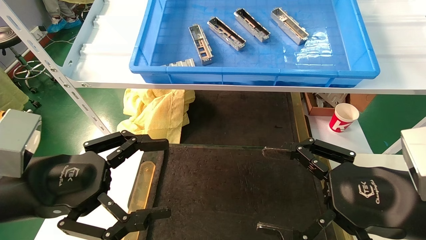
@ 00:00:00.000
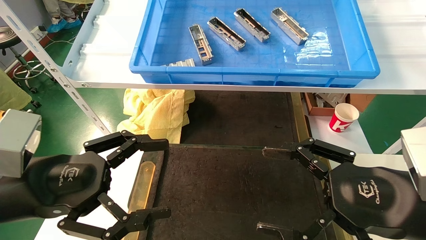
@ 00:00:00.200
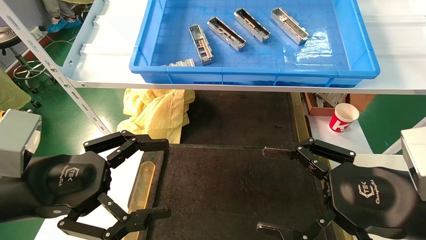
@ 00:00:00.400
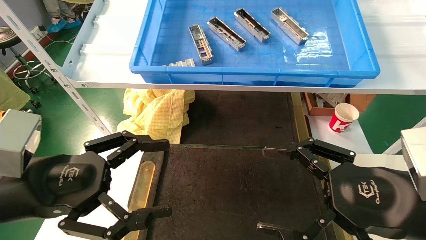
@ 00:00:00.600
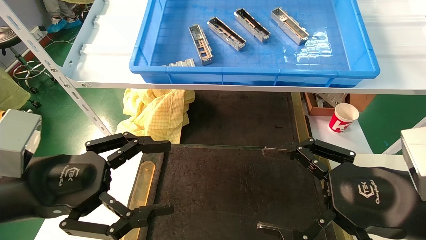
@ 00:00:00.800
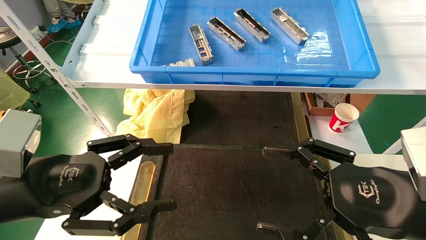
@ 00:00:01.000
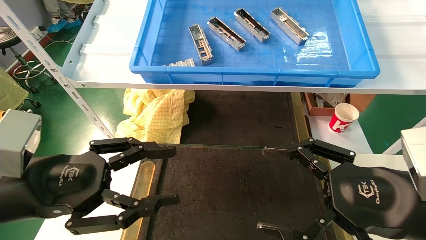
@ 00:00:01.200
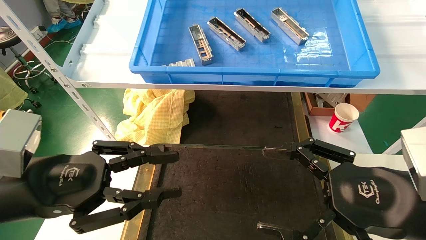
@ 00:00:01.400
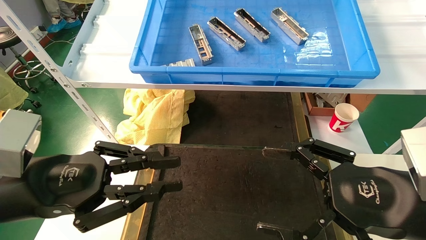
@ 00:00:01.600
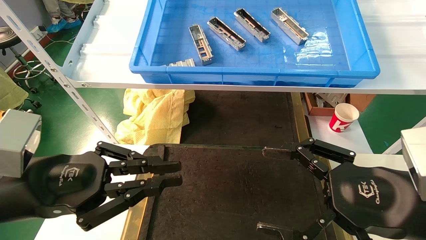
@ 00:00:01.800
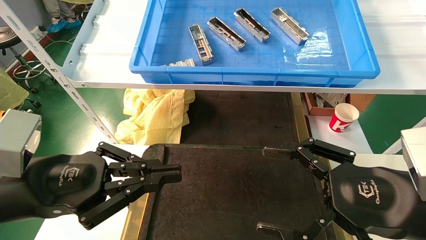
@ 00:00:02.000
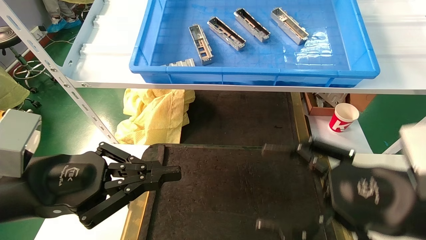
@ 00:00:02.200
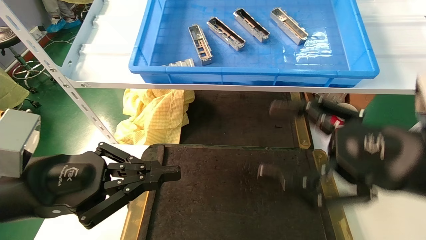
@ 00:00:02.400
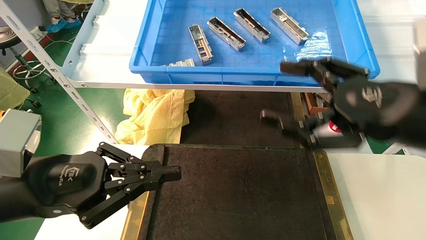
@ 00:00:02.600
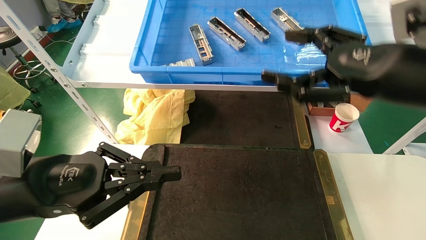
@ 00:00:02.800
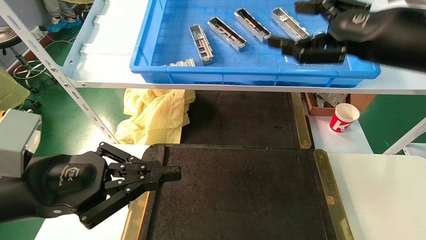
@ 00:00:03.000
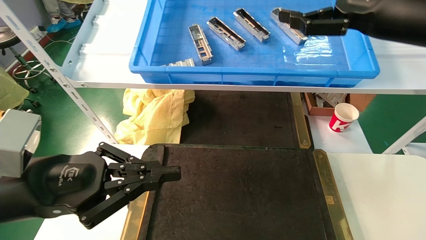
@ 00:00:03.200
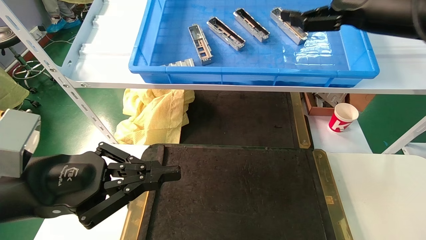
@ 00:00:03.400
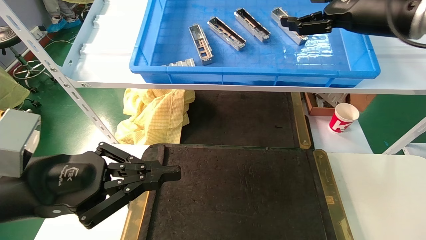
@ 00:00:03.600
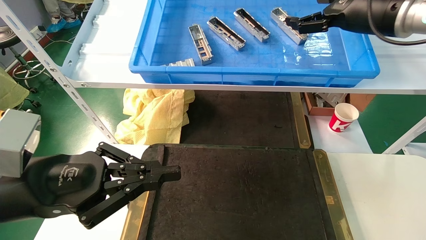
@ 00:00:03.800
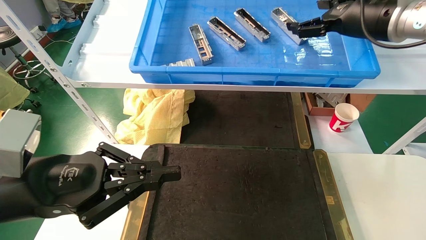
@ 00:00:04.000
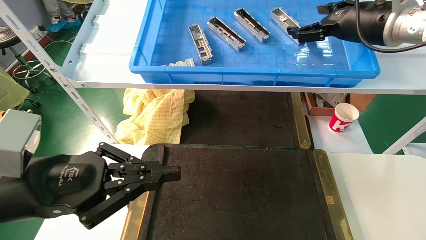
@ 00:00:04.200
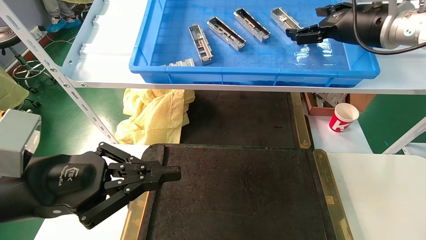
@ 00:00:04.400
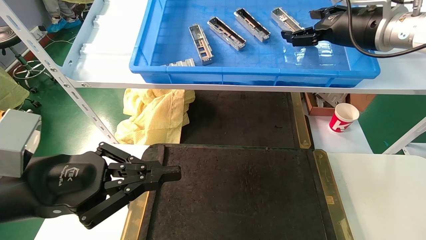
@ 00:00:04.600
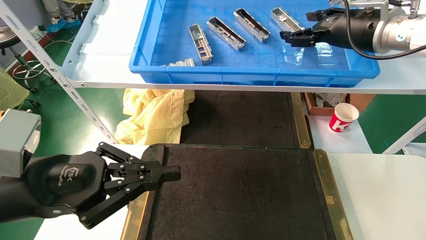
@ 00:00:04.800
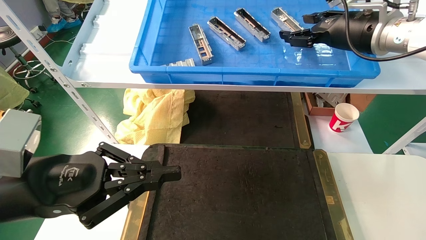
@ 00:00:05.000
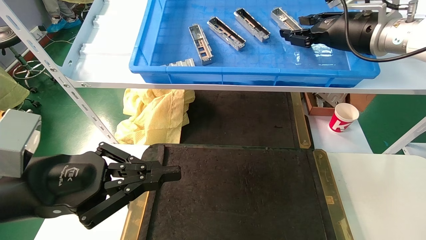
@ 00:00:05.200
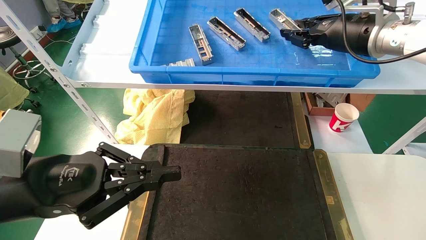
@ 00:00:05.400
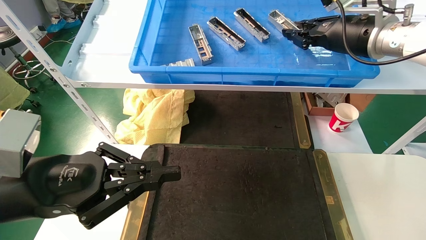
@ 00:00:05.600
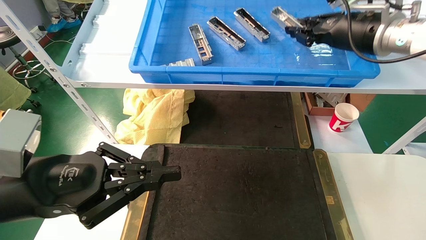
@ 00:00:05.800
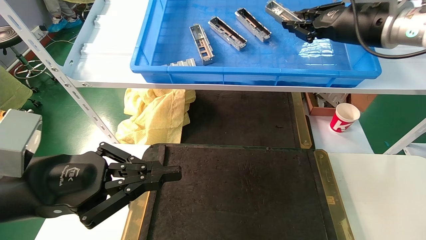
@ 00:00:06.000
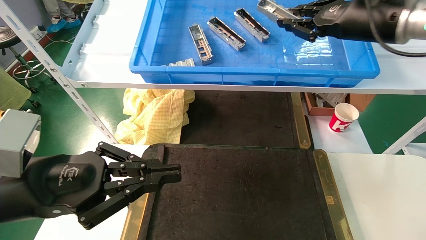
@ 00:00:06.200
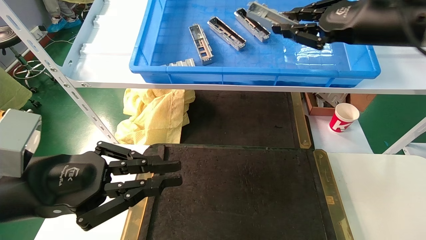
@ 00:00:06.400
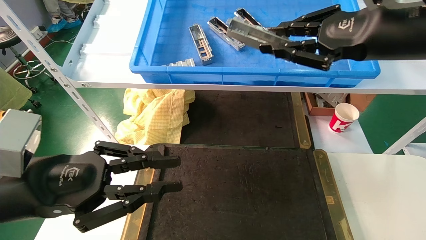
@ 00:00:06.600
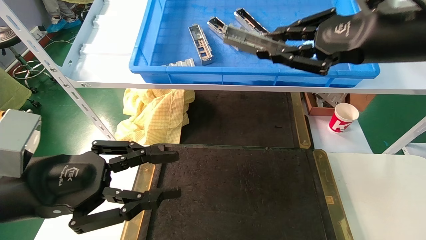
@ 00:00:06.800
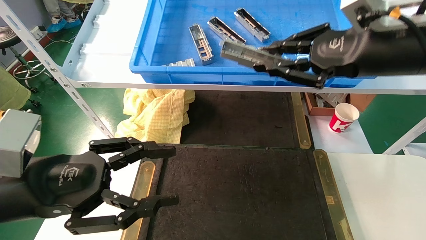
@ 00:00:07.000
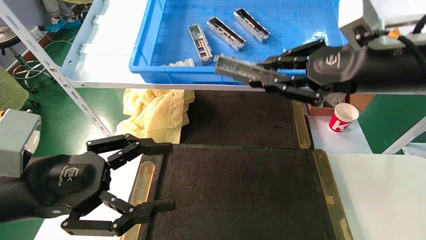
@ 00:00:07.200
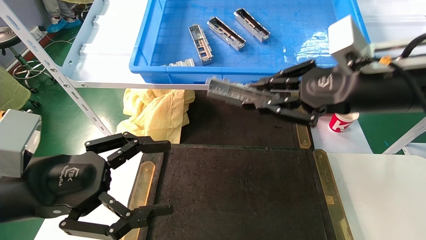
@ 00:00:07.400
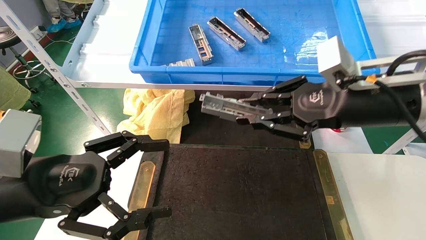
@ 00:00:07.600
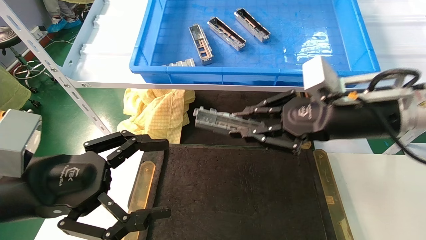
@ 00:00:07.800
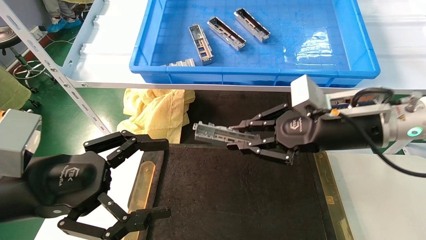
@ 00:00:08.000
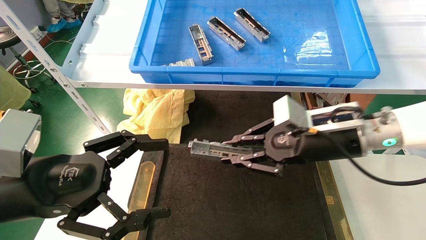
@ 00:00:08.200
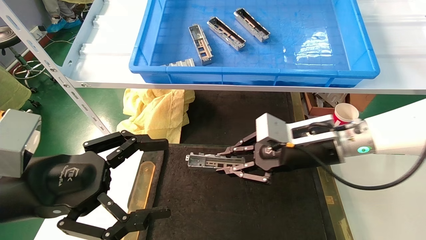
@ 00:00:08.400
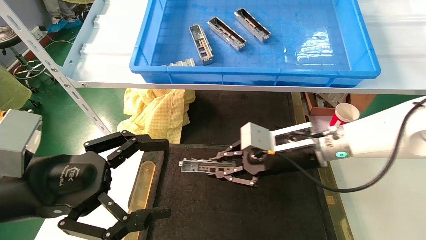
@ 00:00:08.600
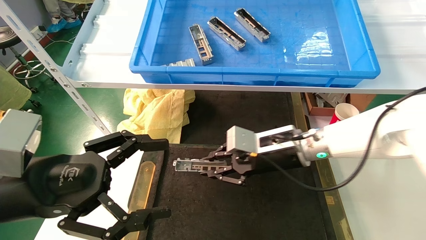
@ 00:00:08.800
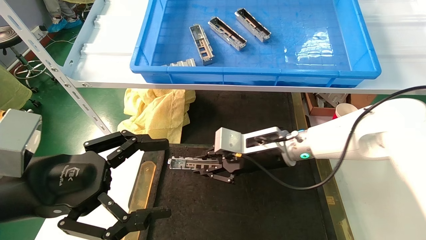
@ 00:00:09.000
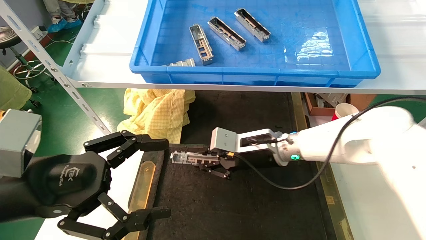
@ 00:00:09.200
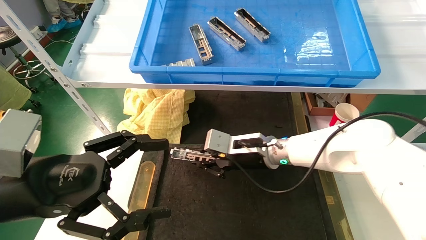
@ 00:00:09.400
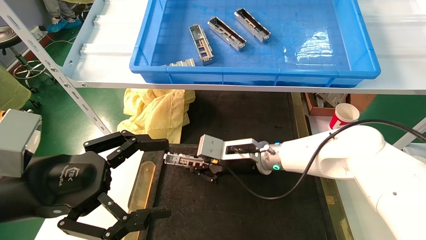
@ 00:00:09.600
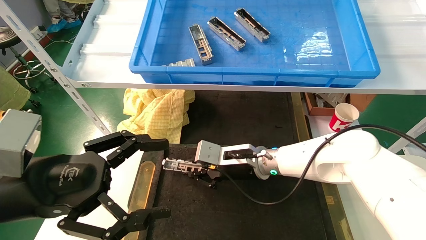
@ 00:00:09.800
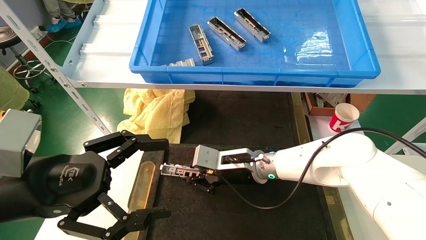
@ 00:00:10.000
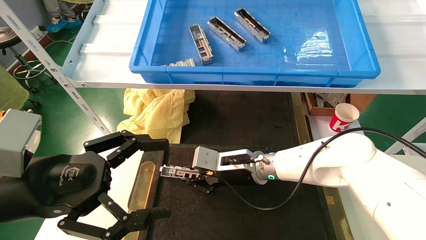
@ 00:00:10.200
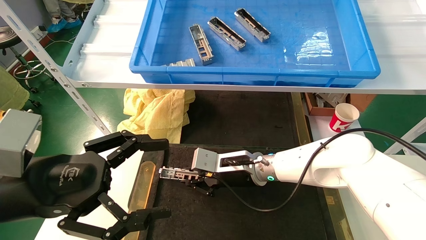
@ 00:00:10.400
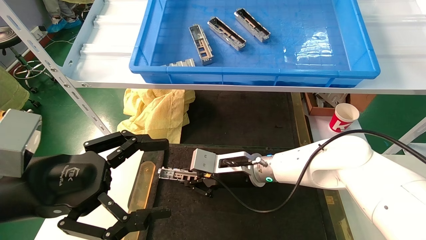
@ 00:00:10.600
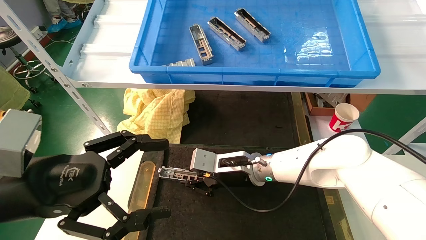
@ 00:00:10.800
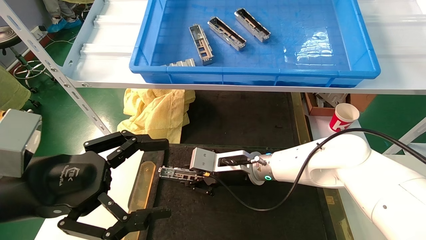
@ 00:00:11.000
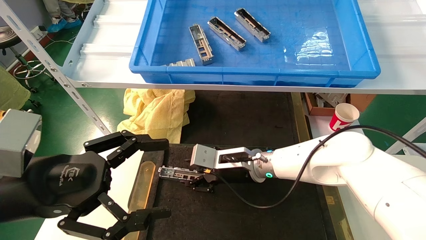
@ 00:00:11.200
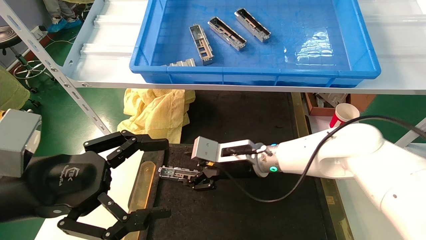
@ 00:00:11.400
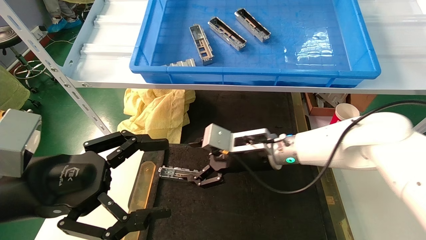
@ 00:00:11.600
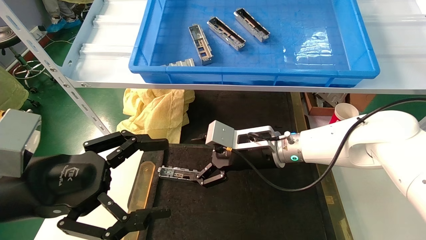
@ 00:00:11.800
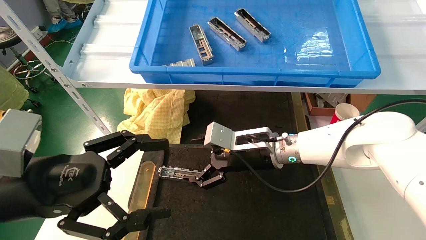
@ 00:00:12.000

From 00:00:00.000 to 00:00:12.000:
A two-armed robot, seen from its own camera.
Task of the whole recording: grasp the part and place them on the black container.
Step, from 00:00:01.400 to 00:00:06.600: Pick up and lift the front USB bracket from the feeding area.
Step, from 00:00:06.800 to 00:00:11.400: Place the front USB bracket into the box.
From 00:00:00.000 to 00:00:01.600: The left gripper closes.
From 00:00:01.600 to 00:00:03.000: The right gripper heads upward and forward, covering roughly 20 cm. Meanwhile the left gripper closes.
From 00:00:03.000 to 00:00:04.400: The right gripper goes roughly 15 cm forward.
From 00:00:04.400 to 00:00:06.000: The right gripper closes.
From 00:00:06.000 to 00:00:07.600: The left gripper opens its fingers. The right gripper moves downward and backward, roughly 15 cm.
From 00:00:07.600 to 00:00:09.000: The right gripper travels downward, to the left and forward by some 20 cm.
From 00:00:09.000 to 00:00:10.400: The right gripper travels downward and to the left by approximately 10 cm.
From 00:00:10.400 to 00:00:12.000: The right gripper shifts about 5 cm upward, and opens up.

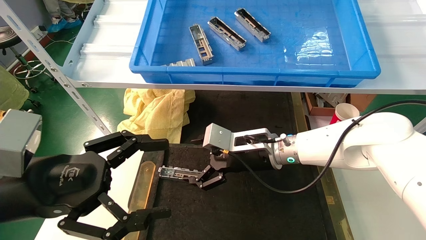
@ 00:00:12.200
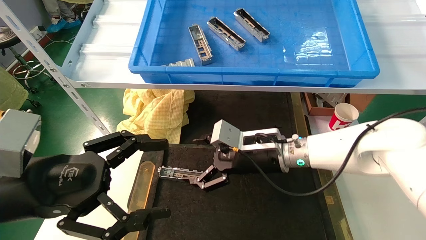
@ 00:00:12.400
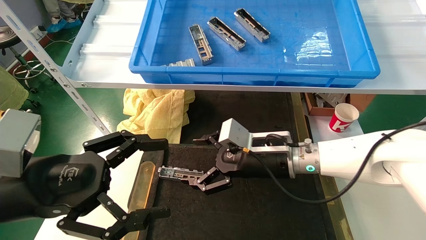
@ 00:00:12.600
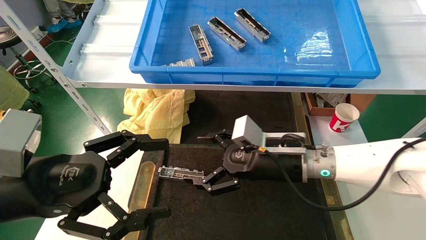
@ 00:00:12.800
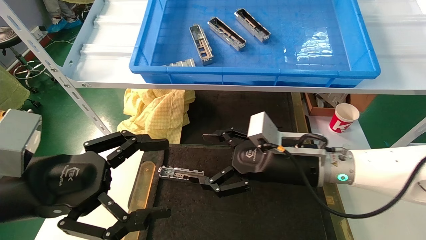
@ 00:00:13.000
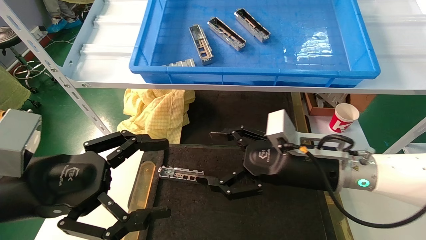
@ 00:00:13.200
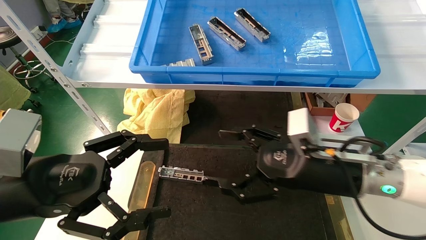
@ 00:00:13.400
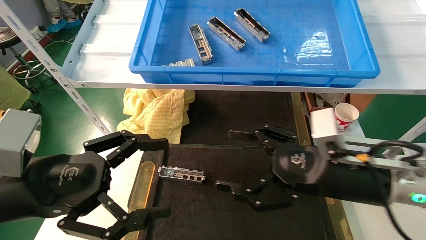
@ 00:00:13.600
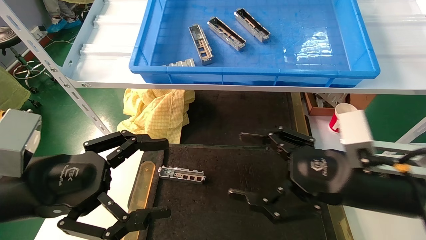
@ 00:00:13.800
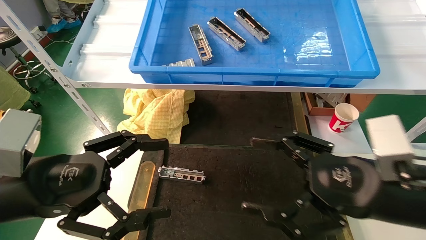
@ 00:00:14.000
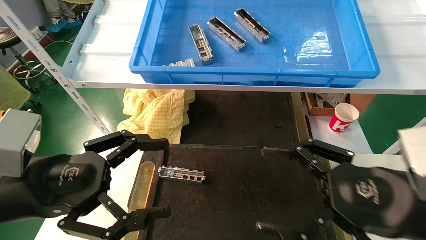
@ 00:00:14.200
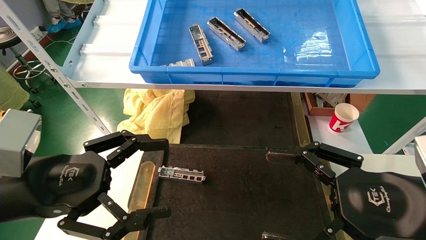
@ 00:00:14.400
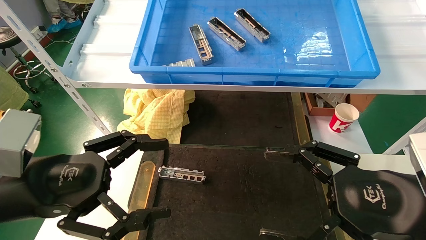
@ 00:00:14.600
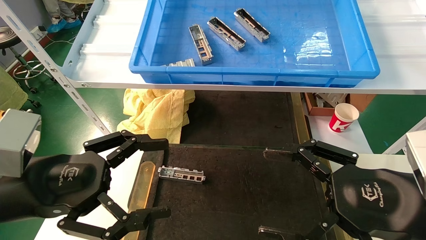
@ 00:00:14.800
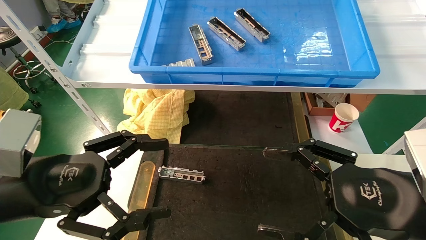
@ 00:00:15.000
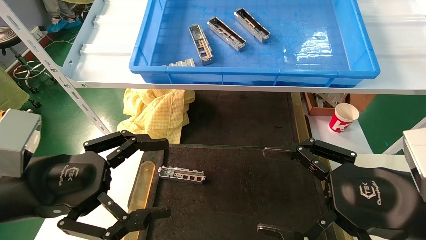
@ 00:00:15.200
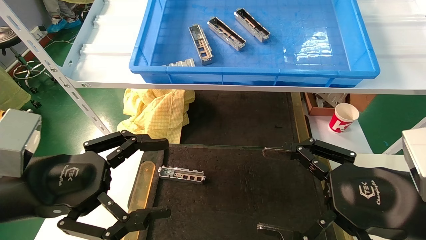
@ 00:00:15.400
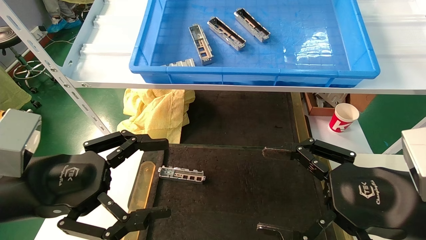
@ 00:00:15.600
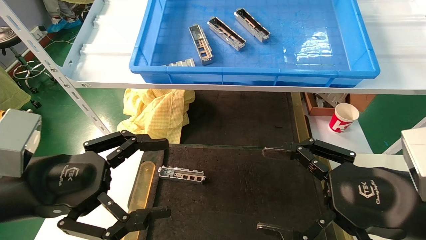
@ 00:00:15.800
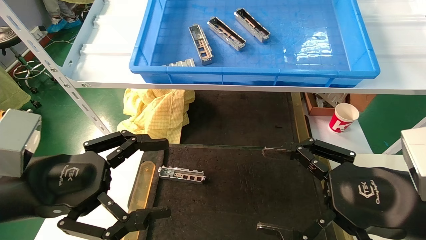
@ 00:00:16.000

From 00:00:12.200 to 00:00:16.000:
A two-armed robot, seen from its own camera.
Task of the whole recording: grasp the part and place them on the black container.
From 00:00:12.200 to 00:00:13.400: The right gripper moves backward and to the right, about 15 cm.
From 00:00:13.400 to 00:00:14.800: The right gripper goes roughly 15 cm backward and to the right.
From 00:00:14.800 to 00:00:16.000: Neither gripper changes place.
